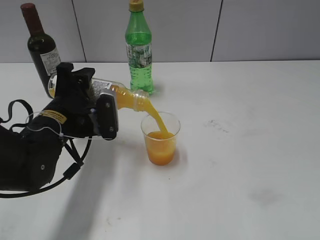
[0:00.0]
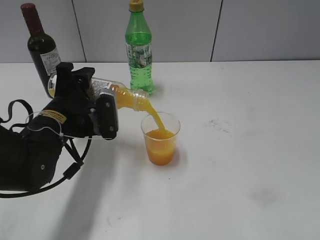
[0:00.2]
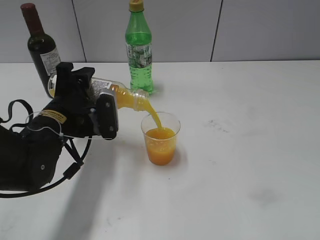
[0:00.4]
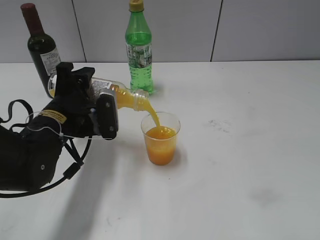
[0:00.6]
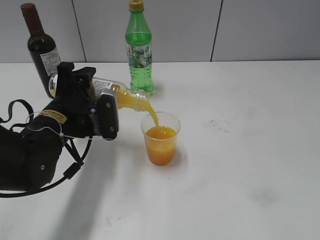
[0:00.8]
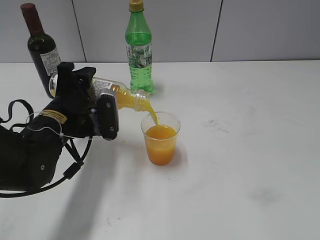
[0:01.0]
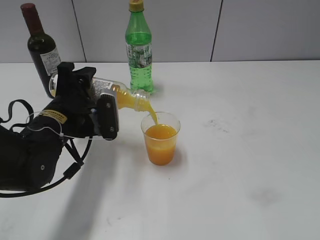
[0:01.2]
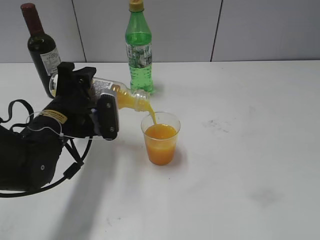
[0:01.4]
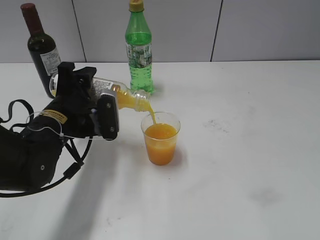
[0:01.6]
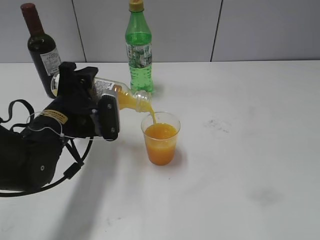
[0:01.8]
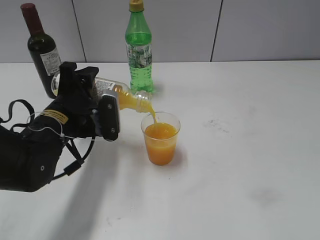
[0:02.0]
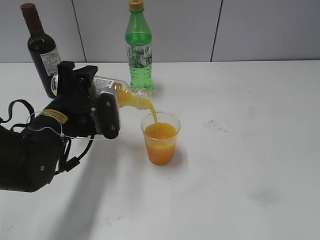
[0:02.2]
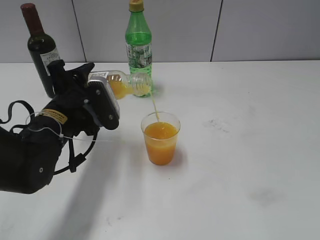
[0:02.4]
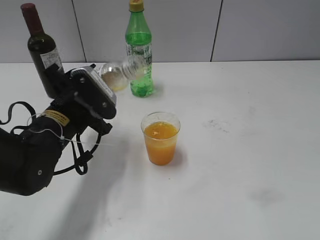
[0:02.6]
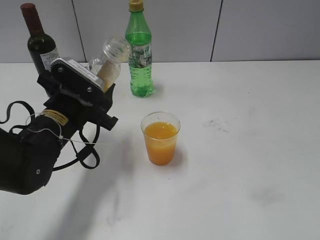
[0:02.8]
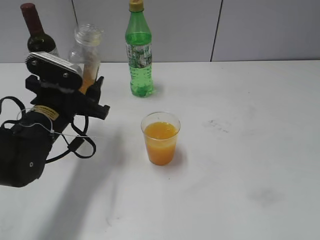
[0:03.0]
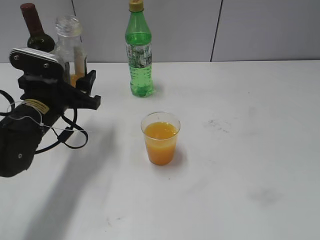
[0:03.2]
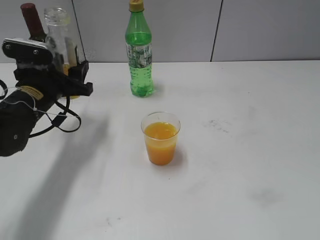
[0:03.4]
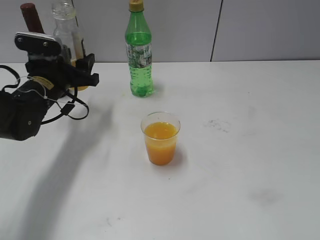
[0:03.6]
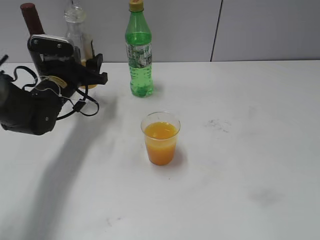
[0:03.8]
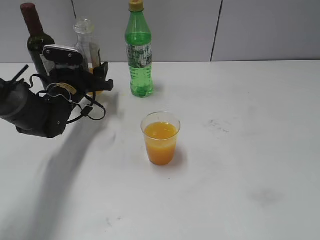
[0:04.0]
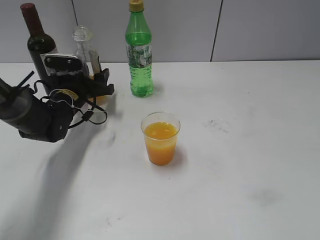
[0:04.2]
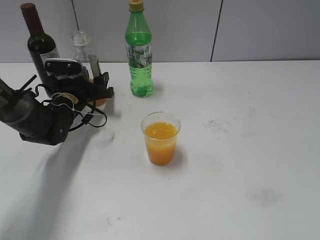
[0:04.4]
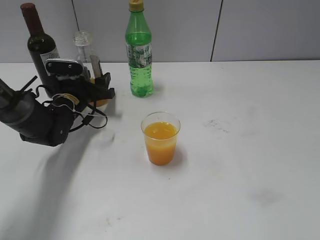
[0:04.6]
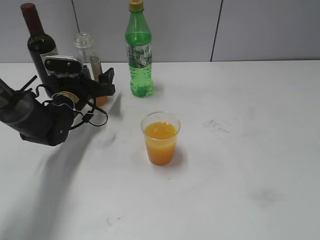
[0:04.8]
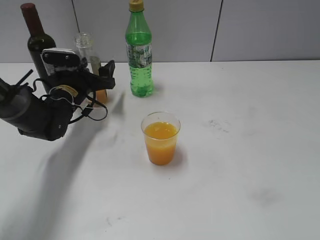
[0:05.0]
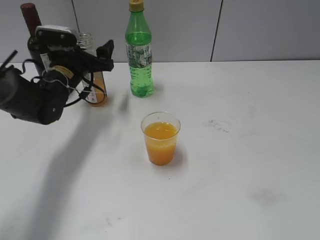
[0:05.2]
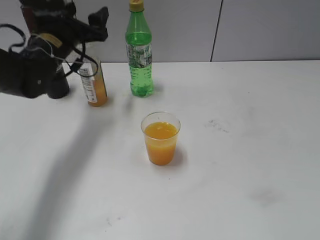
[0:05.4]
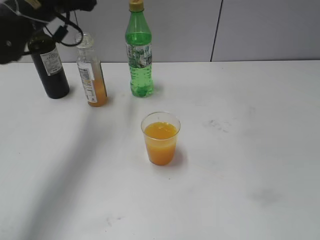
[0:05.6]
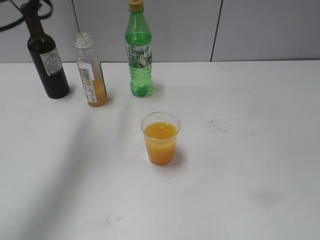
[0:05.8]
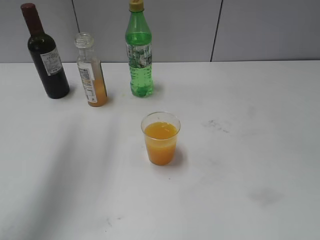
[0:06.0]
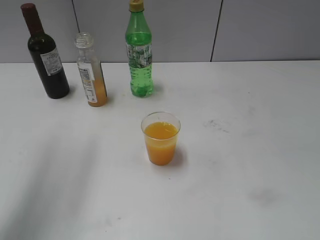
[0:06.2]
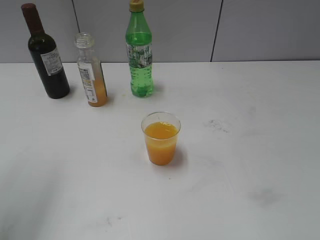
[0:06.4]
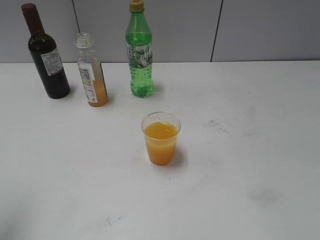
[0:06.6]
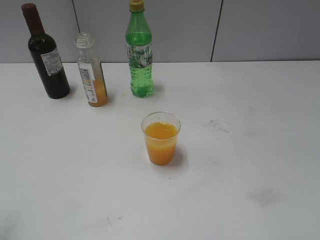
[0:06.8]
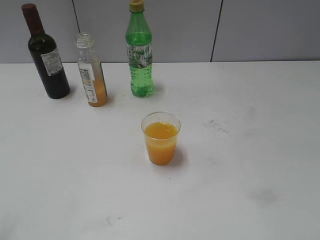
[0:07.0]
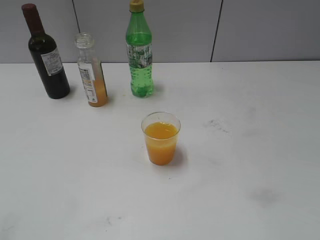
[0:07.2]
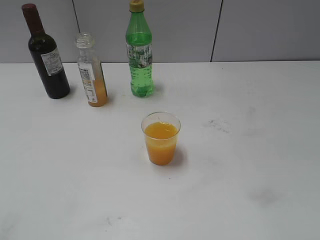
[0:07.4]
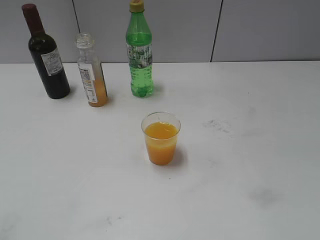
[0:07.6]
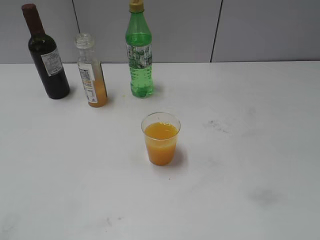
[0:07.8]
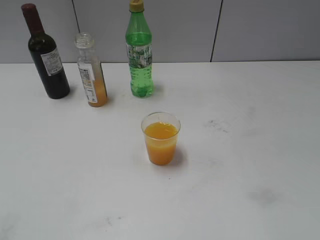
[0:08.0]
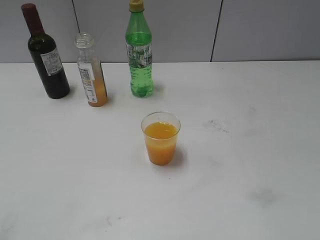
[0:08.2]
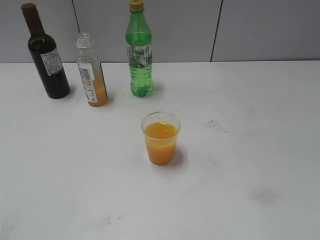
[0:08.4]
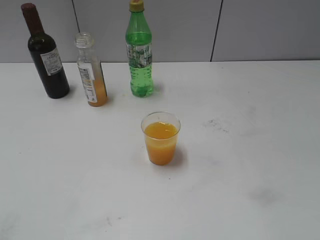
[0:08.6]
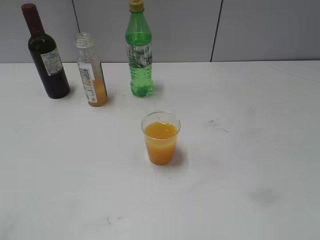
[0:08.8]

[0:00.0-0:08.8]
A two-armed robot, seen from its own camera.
Step, 0.0 to 2.6 s: Pour the orange juice from bottle to cup with left gripper.
Step, 2.8 to 4.8 s: Place the orange juice bottle on the table with left gripper.
0.0 to 1.4 s: Both grippers stay put.
3.0 to 4.4 s: The left gripper travels forward and downward by approximately 15 cm.
4.4 to 5.8 s: The left gripper is displaced upward by about 25 cm, and opens its fingers.
5.8 to 7.4 s: The left gripper goes some 35 cm backward, and closes its fingers.

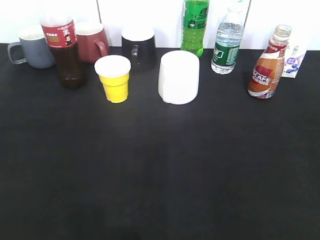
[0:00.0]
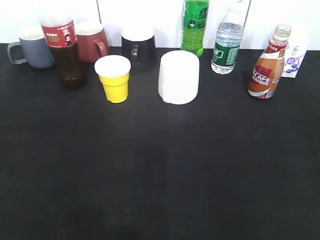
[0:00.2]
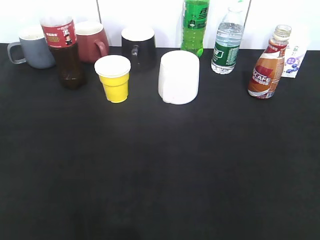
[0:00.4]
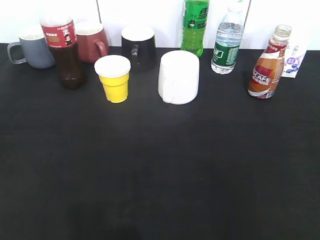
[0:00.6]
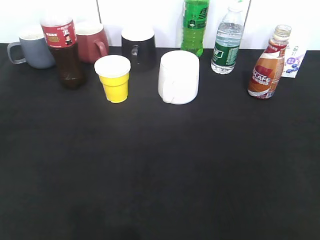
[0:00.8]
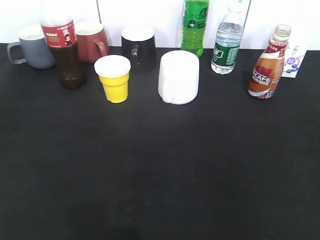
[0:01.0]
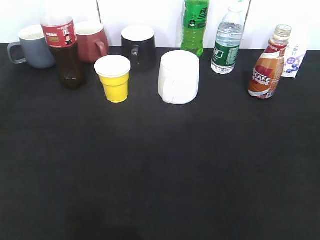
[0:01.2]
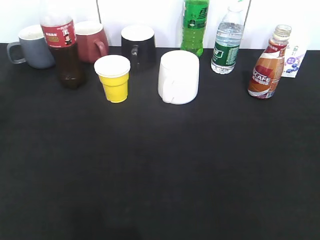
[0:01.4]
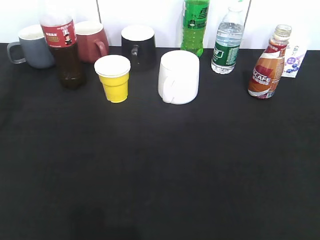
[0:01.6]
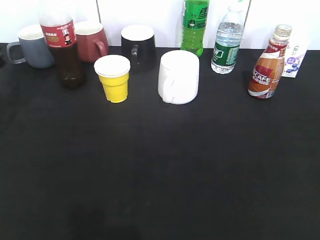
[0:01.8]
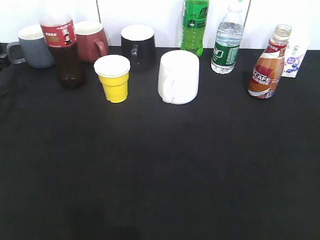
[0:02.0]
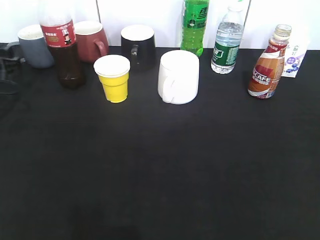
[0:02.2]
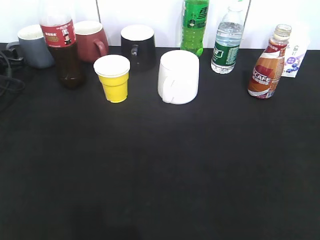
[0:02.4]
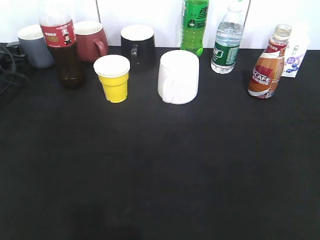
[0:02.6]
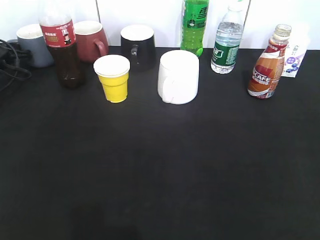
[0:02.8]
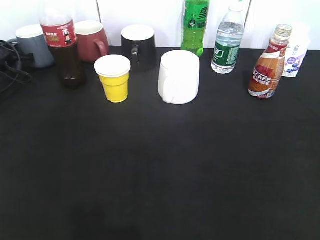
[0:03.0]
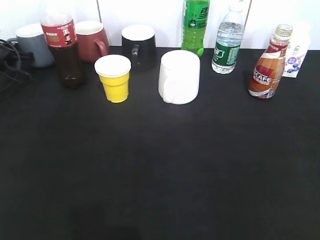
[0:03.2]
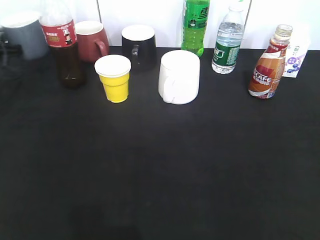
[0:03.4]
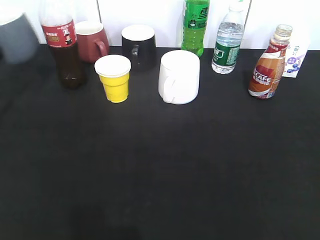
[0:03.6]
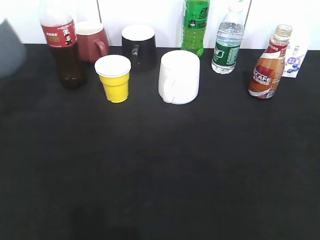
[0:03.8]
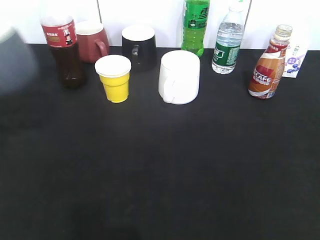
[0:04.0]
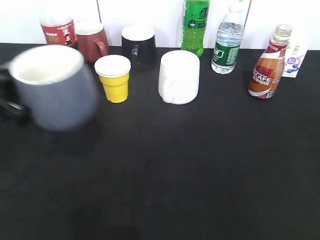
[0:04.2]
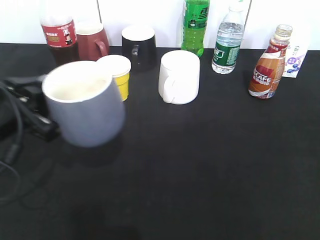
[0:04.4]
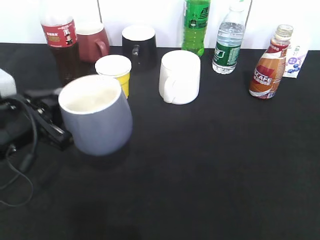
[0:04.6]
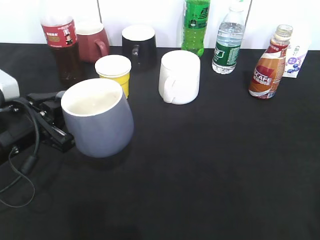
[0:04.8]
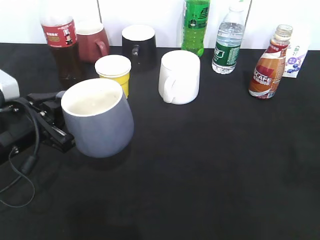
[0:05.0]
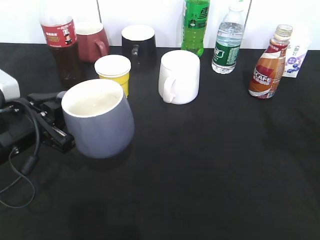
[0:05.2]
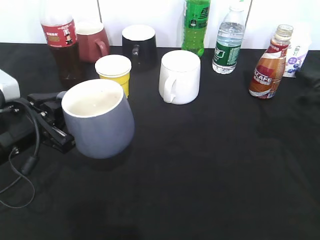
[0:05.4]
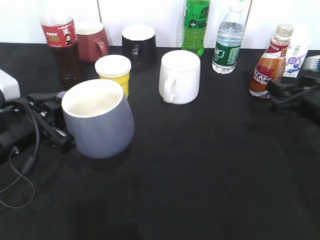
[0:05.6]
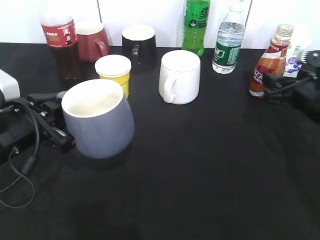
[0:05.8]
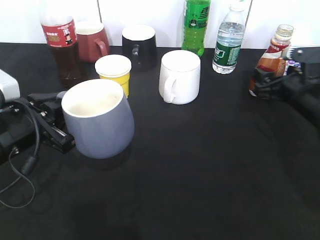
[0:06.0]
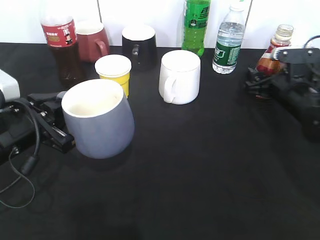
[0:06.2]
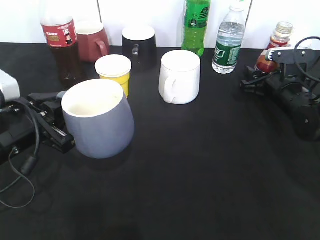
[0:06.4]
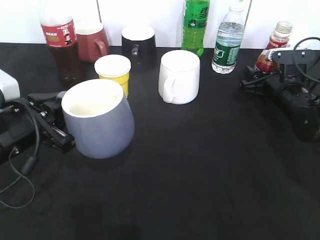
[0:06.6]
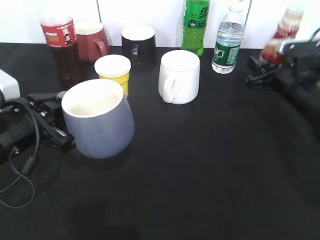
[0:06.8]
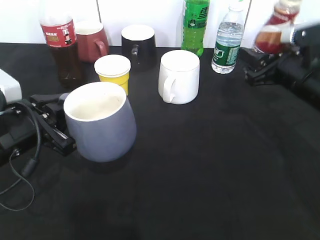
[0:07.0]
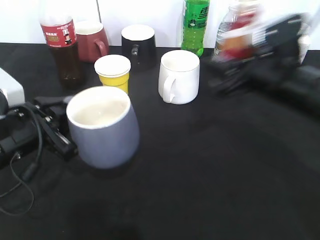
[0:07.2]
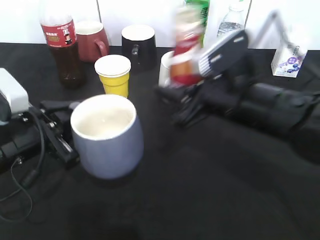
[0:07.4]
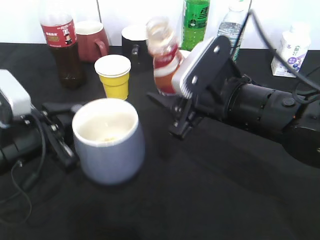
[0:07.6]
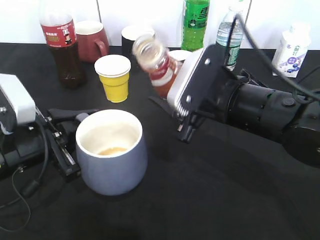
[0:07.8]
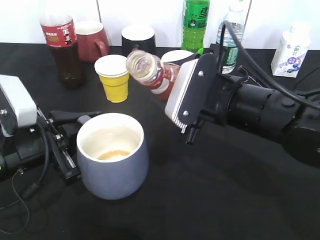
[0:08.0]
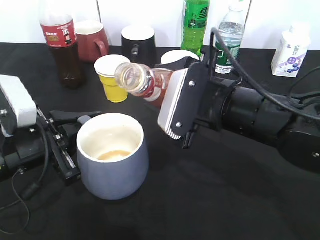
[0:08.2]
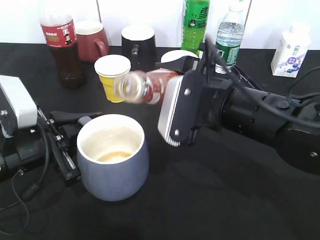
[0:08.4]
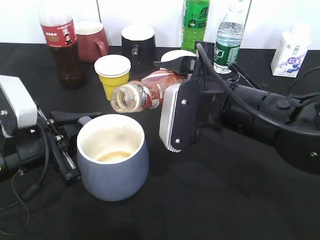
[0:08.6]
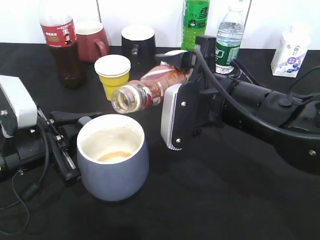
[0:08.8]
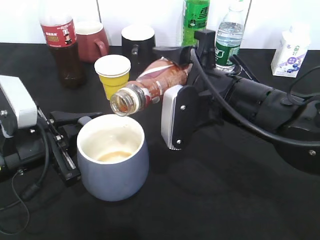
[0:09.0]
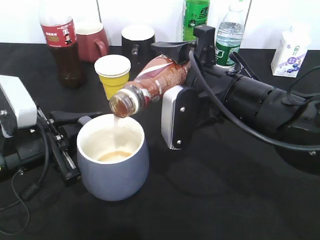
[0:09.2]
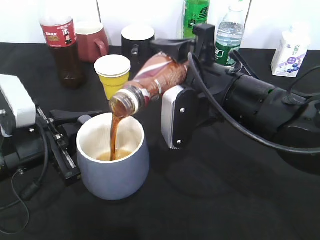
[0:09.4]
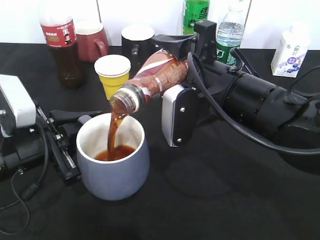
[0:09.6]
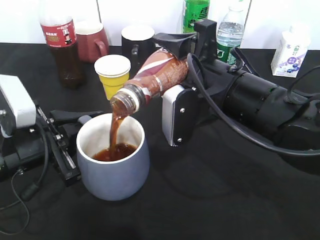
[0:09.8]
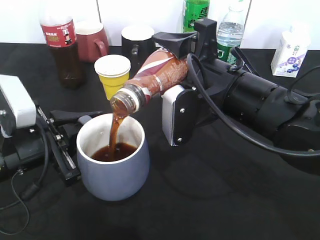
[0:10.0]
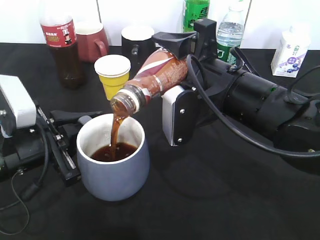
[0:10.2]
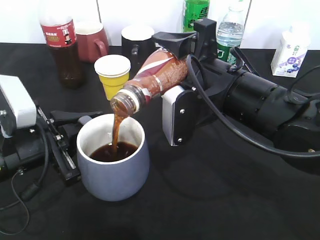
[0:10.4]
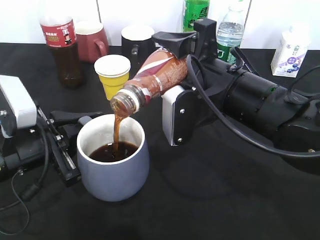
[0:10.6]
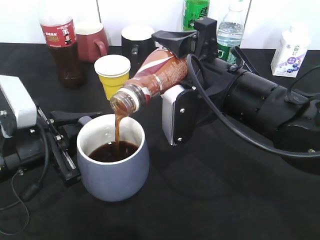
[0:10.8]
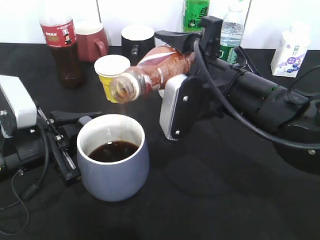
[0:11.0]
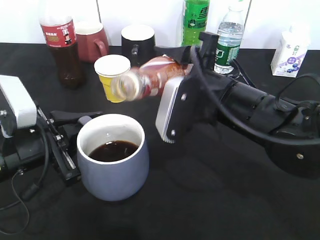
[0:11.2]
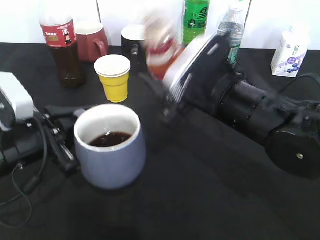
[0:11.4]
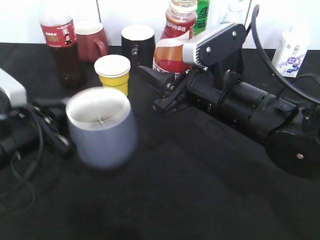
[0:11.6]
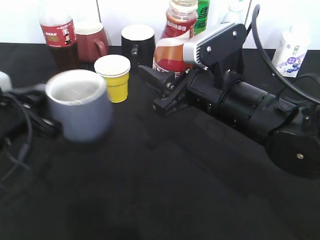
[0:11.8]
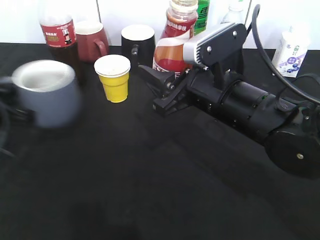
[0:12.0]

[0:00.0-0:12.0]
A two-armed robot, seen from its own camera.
Step, 0.0 to 3.0 s: Grasp the grey cup with left gripper.
Step, 3.2 to 5.0 s: Lift the grey cup with left gripper.
Step, 5.2 to 6.4 s: Grasp the bottle with coffee with right gripper.
Step, 6.6 to 11.0 s: Pour the coffee from bottle to cup with right gripper.
0.0 to 1.6 s: The left gripper heads forward, covering some 30 cm.
1.6 to 3.0 s: The left gripper moves forward and downward, approximately 25 cm, and closes its fingers.
3.0 to 4.4 s: The left gripper shifts some 30 cm backward and to the right.
4.4 to 6.0 s: The right gripper heads forward and downward, covering roughly 35 cm, and opens up.
6.0 to 7.6 s: The right gripper goes approximately 20 cm to the left, backward and upward, and closes its fingers.
9.0 to 10.4 s: There are only small adjustments of the grippers.
10.4 to 12.0 s: The left gripper moves to the left, about 10 cm.

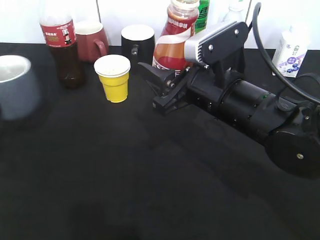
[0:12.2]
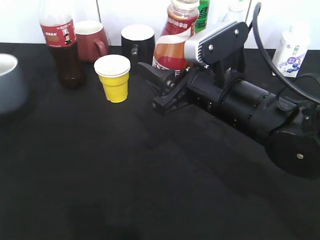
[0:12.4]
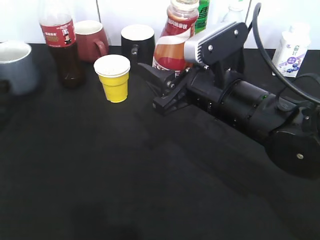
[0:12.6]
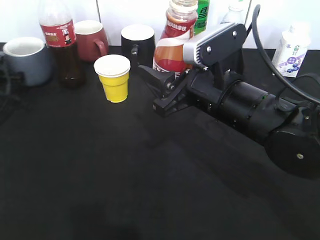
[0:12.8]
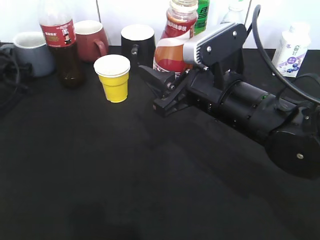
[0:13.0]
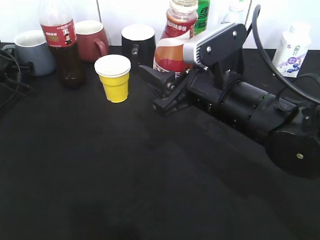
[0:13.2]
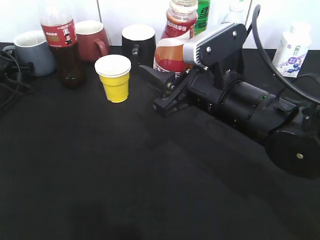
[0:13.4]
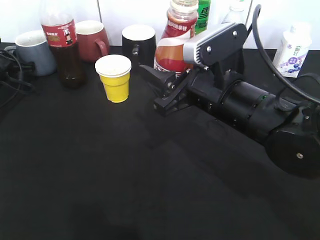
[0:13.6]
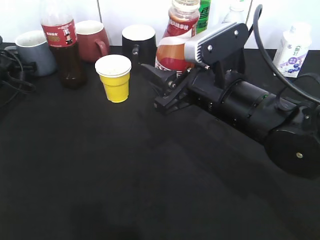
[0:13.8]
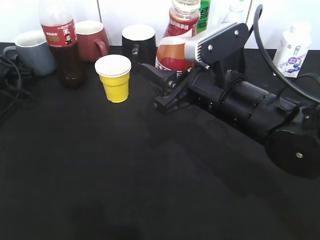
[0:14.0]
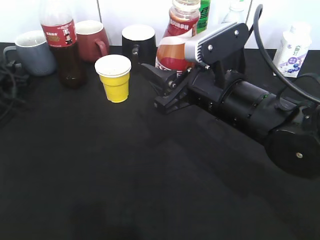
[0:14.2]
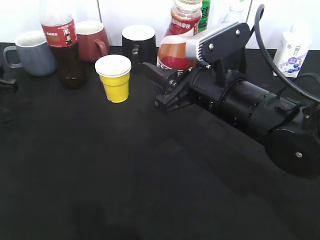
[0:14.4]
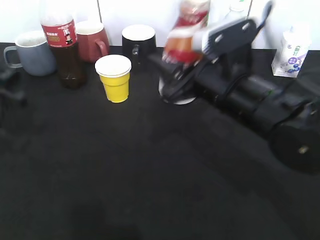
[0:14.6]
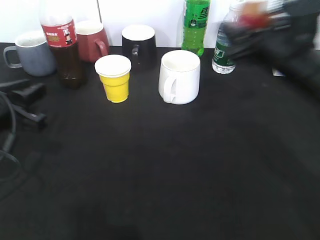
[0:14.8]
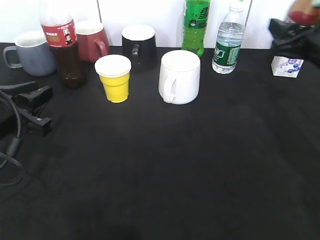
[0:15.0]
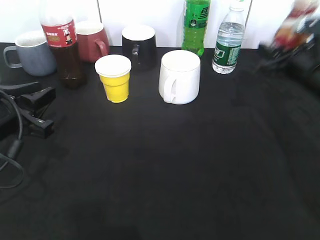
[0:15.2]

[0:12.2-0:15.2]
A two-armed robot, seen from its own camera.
Step, 12.2 to 14.2 s: Place the grey cup on the table with left gripper.
12.2 to 13.8 s: The left gripper is displaced forward by about 20 cm, and opens up.
13.8 to 15.2 s: The right gripper goes about 20 cm to the right and forward, while the left gripper shifts some 25 cm backward and to the right.
